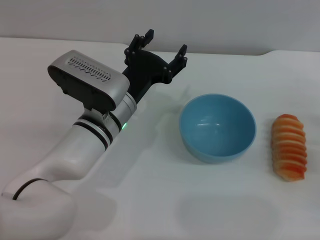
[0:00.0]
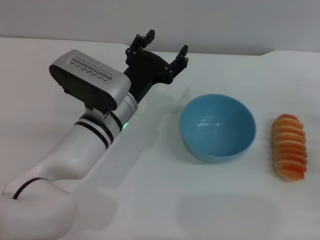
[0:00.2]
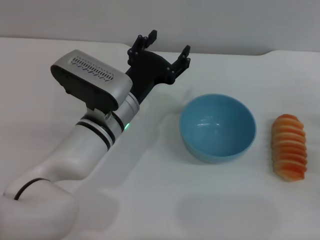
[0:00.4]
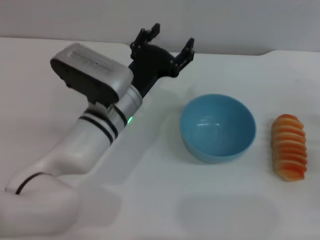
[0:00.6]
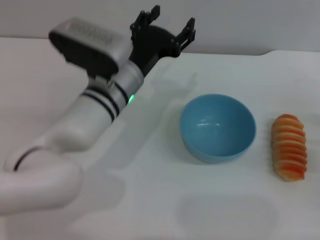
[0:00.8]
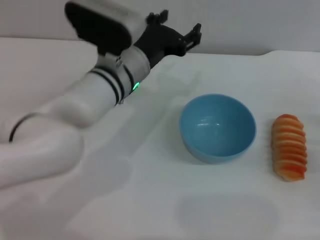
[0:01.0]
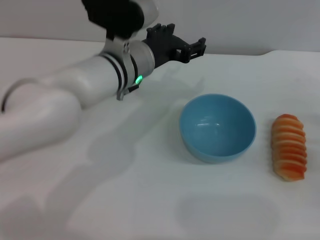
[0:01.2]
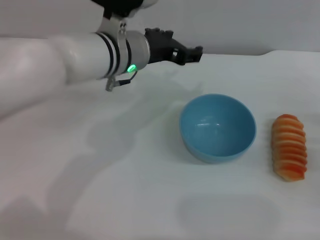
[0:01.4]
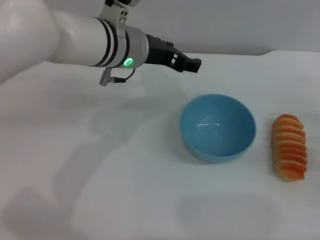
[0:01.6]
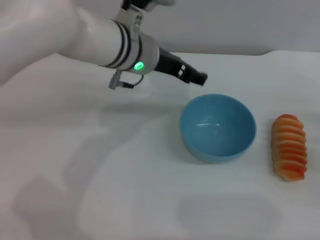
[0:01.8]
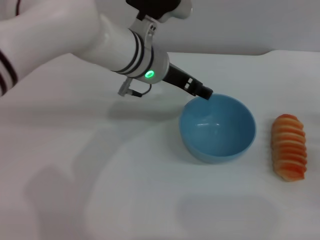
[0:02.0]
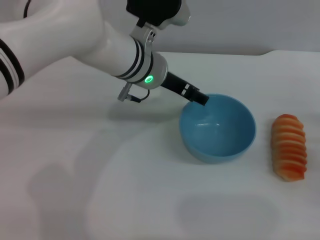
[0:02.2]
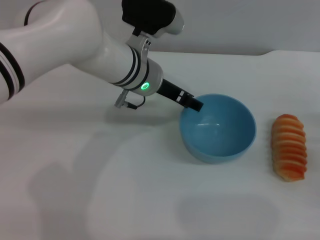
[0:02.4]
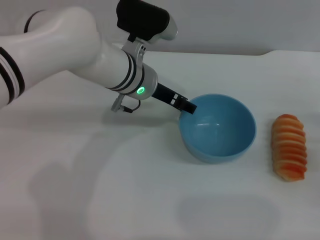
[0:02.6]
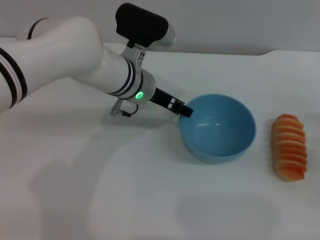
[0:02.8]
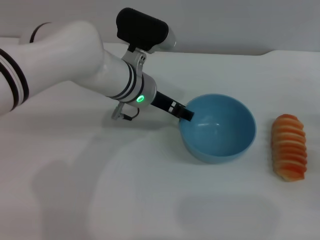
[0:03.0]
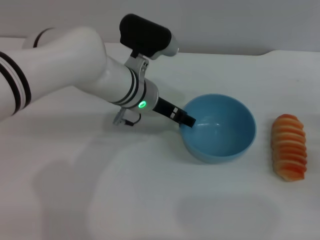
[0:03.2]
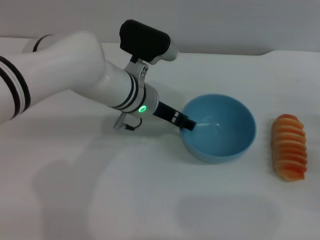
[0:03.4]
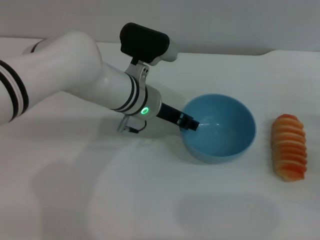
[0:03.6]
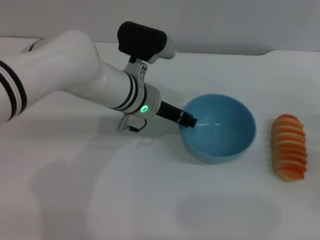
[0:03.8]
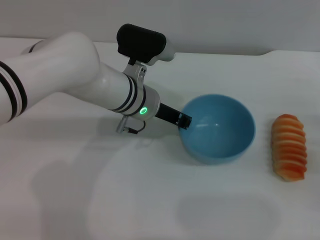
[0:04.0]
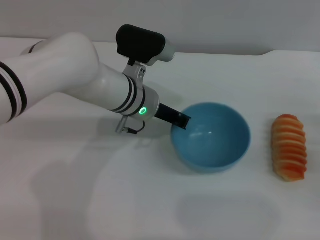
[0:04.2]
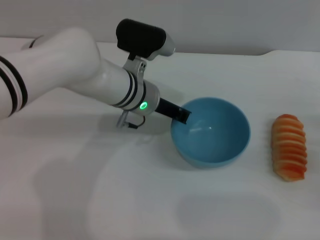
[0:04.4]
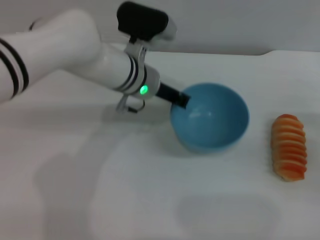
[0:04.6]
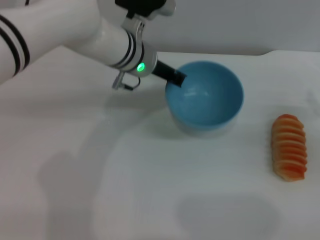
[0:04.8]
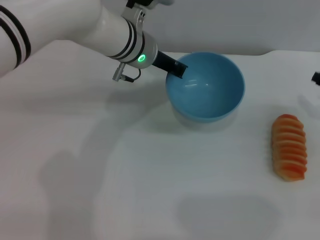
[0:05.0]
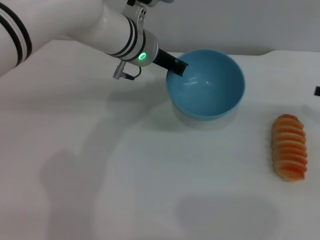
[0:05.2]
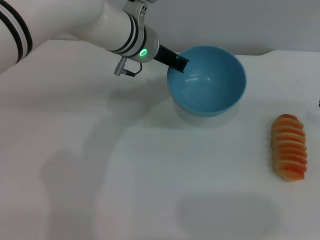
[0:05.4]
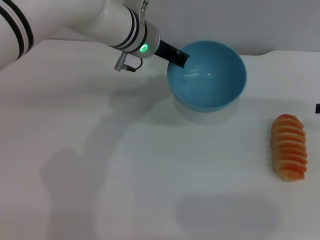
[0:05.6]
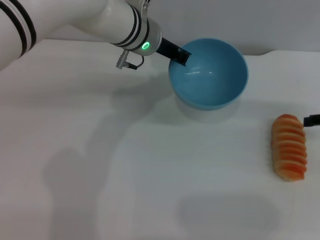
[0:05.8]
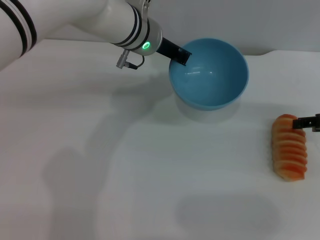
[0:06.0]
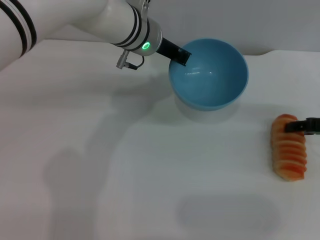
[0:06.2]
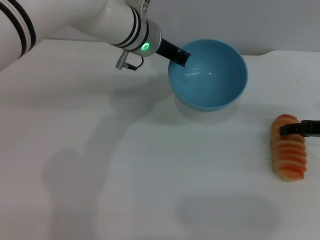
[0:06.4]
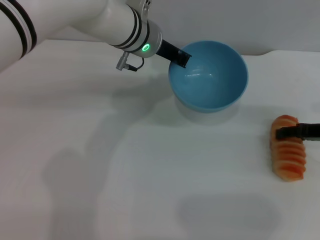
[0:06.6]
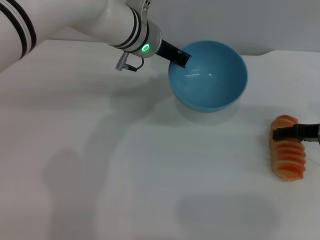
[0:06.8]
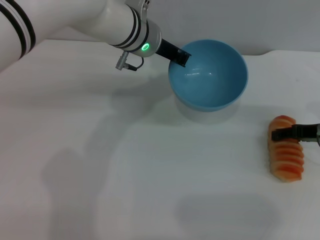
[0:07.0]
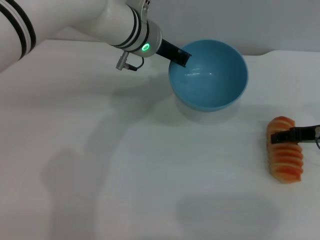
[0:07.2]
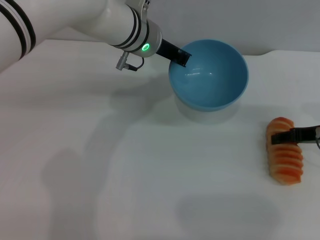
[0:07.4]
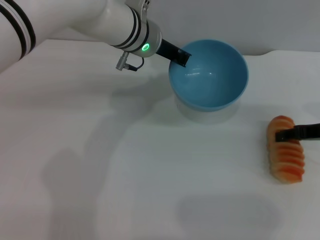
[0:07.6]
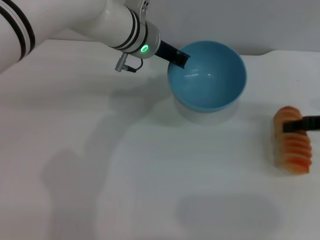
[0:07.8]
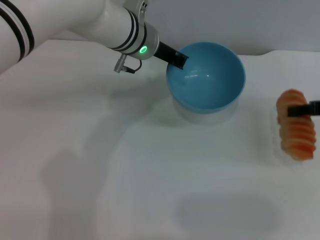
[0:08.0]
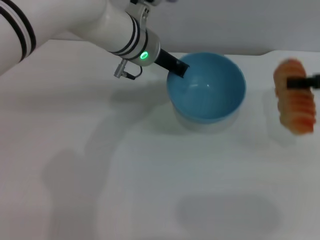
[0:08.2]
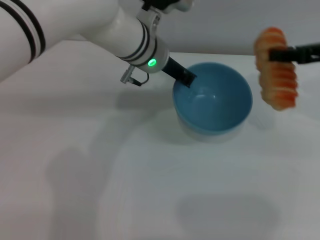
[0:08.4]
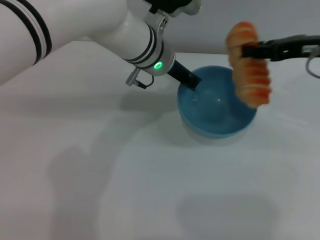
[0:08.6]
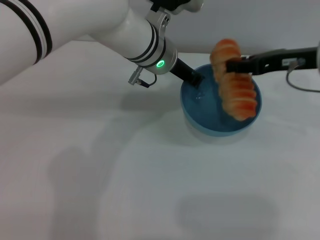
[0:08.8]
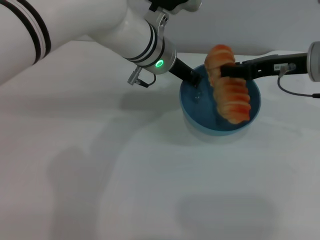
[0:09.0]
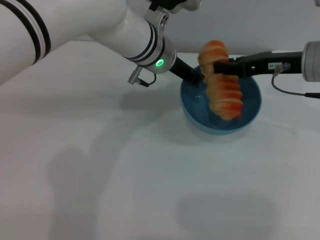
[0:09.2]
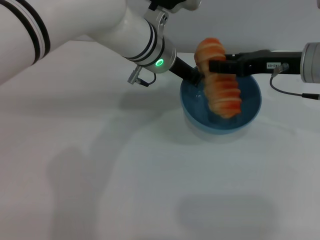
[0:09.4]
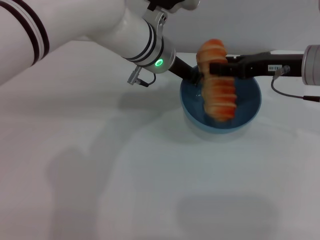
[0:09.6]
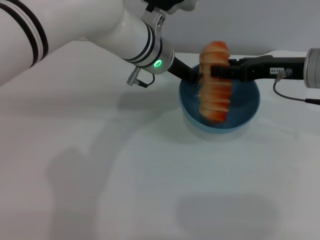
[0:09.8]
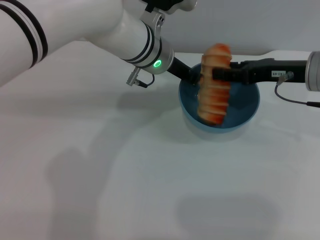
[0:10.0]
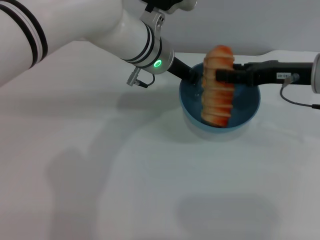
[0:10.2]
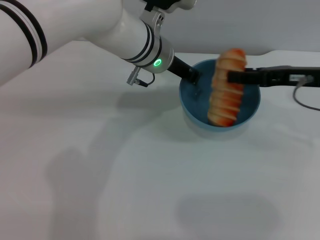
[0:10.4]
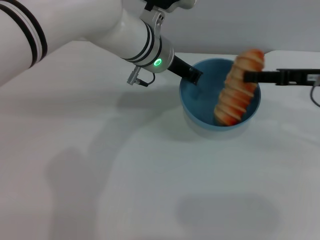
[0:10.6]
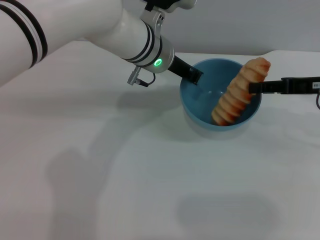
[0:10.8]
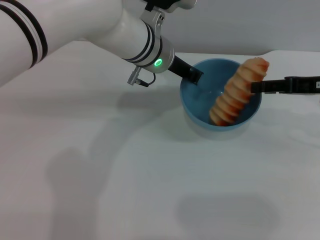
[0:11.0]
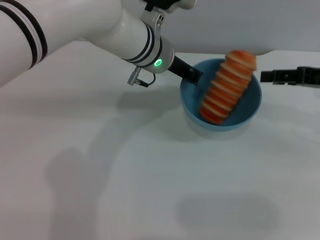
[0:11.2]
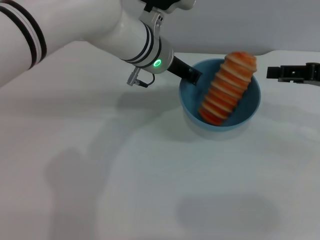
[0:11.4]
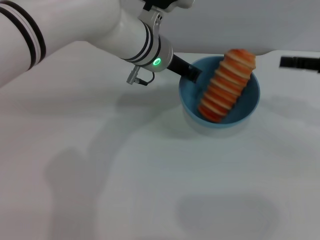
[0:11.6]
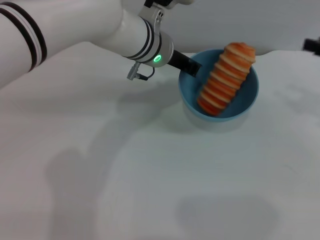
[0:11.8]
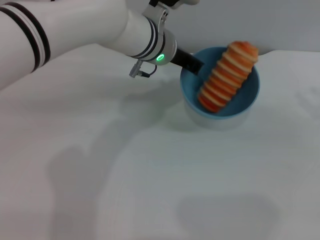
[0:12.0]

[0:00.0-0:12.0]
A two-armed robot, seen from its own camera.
Task of the whole recording: put the bread into the blue bowl and pour it out repeatedly.
Step, 0.0 to 5.2 s: Pick up the bowl with the left gripper.
Step, 5.4 to 8.2 s: Pick up the bread with the right gripper.
Step, 8.6 to 11.0 s: Place the bread into the bowl.
0.0 to 1.6 s: The left gripper heads upward and forward, covering approximately 15 cm.
1.6 to 3.0 s: The left gripper shifts some 5 cm downward.
3.0 to 4.4 s: The left gripper closes its fingers.
4.4 to 6.0 s: Both grippers travel together upward and forward, approximately 10 cm.
6.0 to 7.6 s: There are only small adjustments of the grippers.
7.6 to 9.0 s: The right gripper shifts roughly 10 cm to the left and upward, and closes its fingers.
9.0 to 10.4 s: The right gripper opens.
10.4 to 12.0 s: The right gripper heads to the right, covering approximately 10 cm.

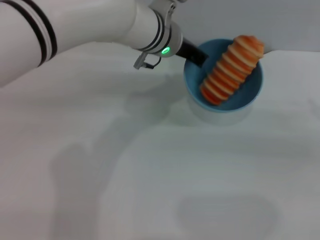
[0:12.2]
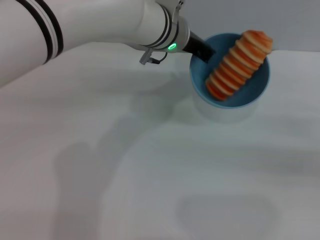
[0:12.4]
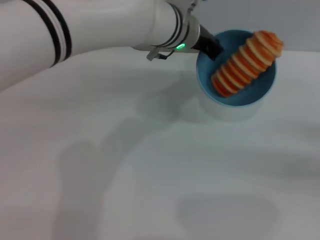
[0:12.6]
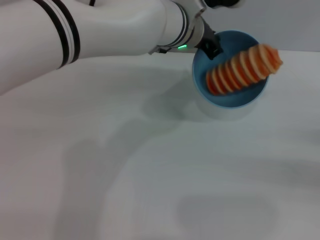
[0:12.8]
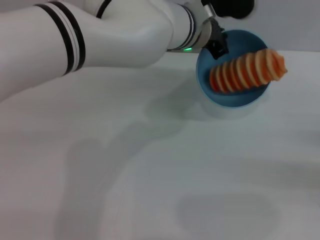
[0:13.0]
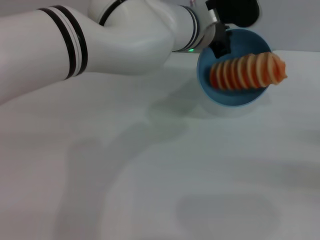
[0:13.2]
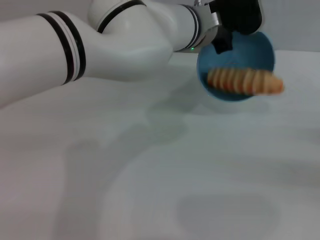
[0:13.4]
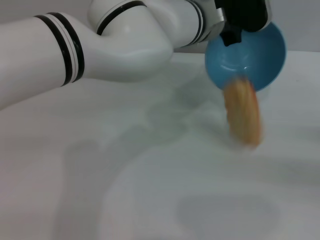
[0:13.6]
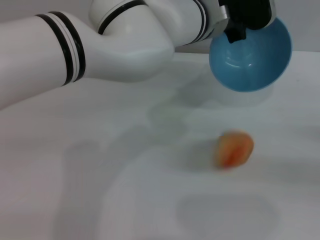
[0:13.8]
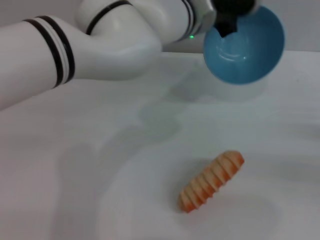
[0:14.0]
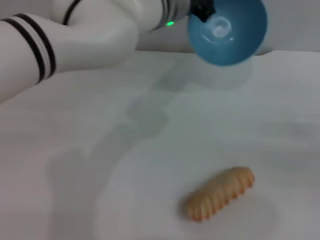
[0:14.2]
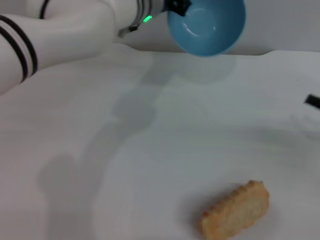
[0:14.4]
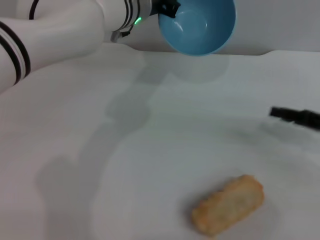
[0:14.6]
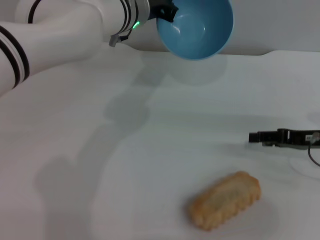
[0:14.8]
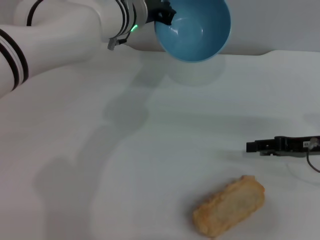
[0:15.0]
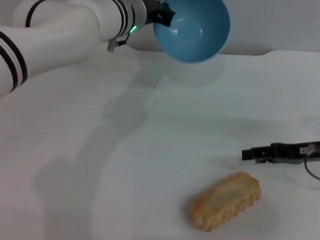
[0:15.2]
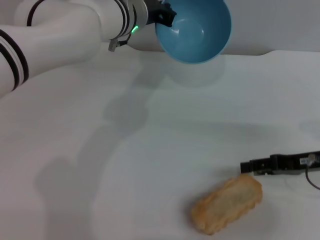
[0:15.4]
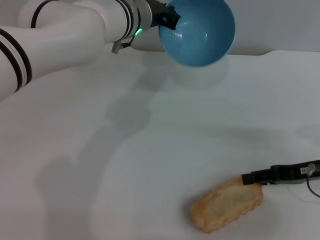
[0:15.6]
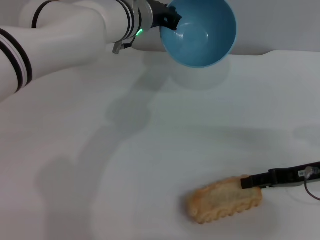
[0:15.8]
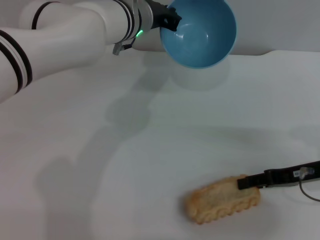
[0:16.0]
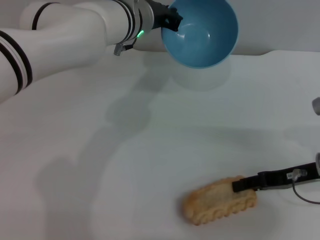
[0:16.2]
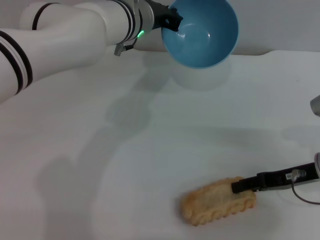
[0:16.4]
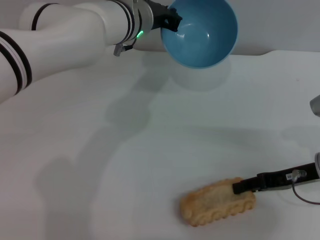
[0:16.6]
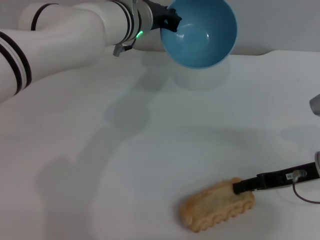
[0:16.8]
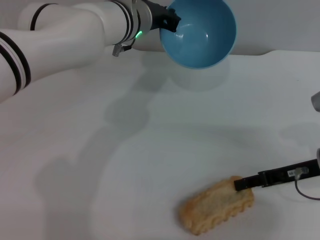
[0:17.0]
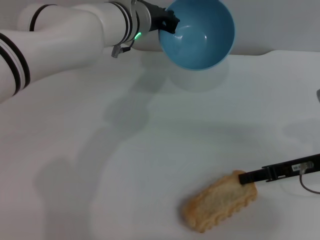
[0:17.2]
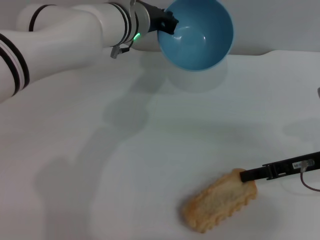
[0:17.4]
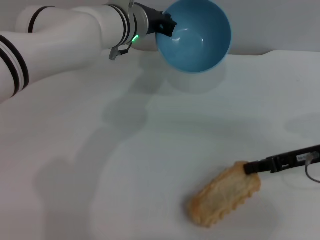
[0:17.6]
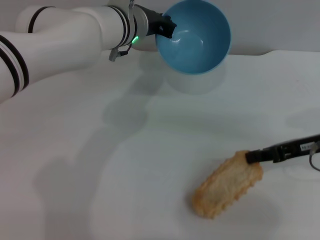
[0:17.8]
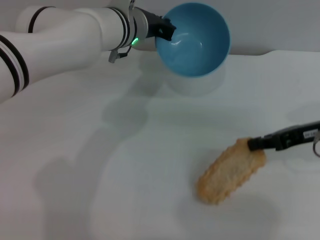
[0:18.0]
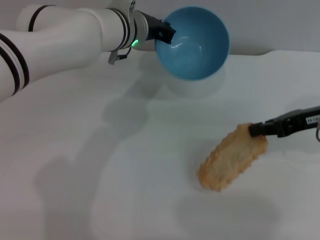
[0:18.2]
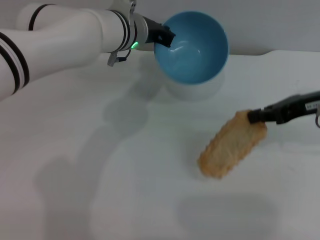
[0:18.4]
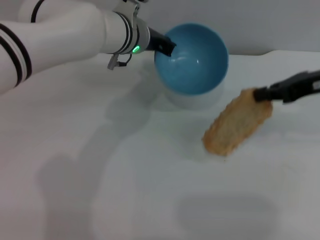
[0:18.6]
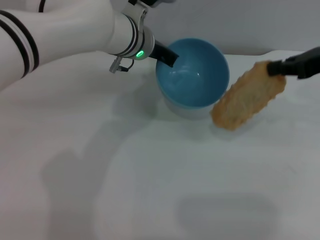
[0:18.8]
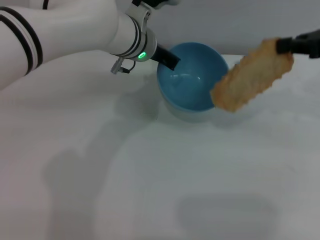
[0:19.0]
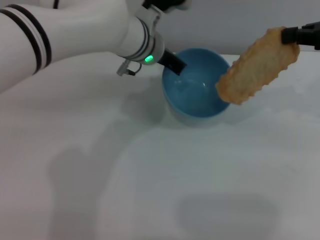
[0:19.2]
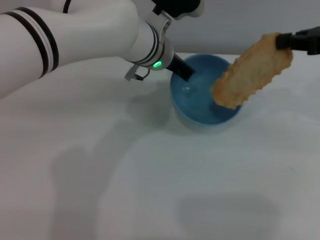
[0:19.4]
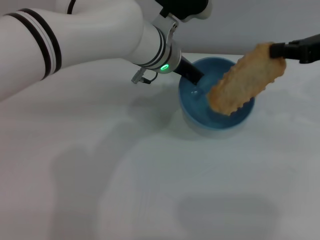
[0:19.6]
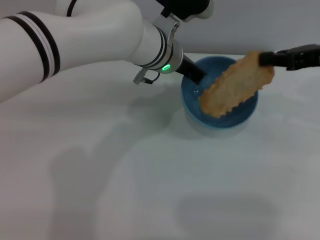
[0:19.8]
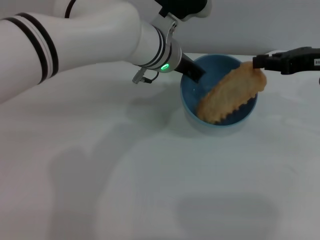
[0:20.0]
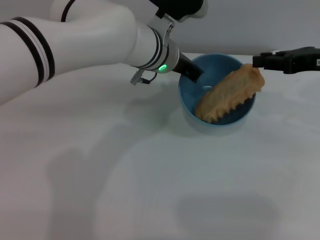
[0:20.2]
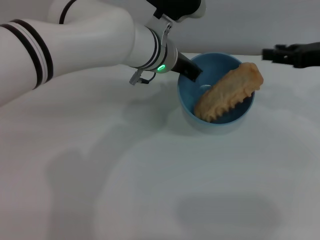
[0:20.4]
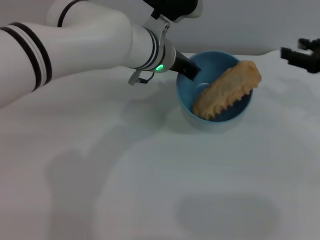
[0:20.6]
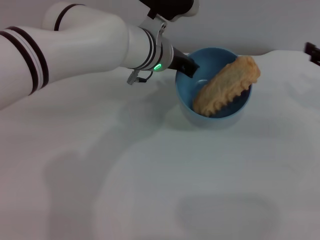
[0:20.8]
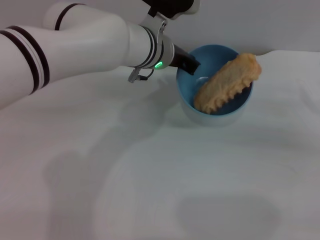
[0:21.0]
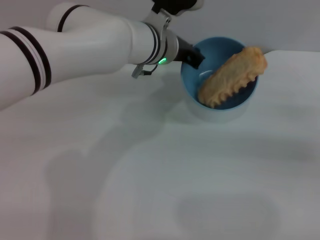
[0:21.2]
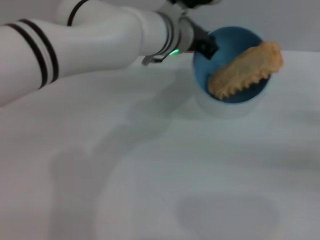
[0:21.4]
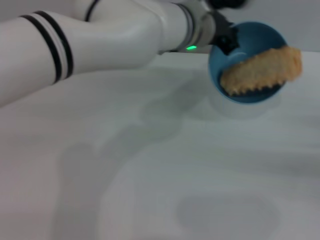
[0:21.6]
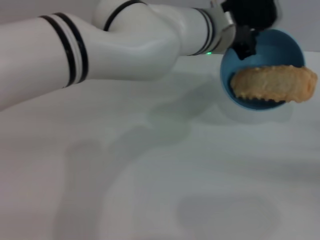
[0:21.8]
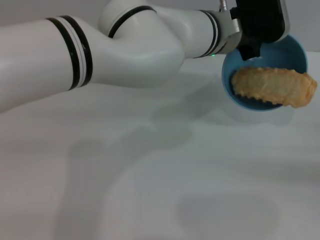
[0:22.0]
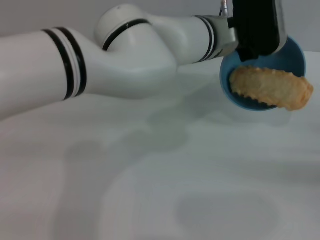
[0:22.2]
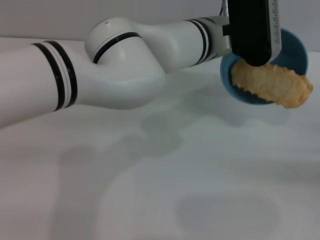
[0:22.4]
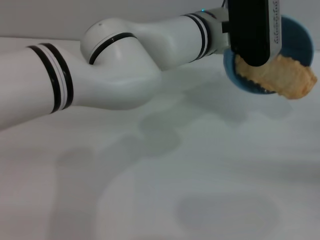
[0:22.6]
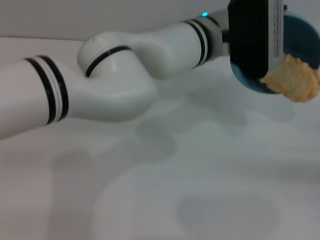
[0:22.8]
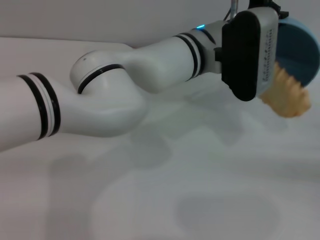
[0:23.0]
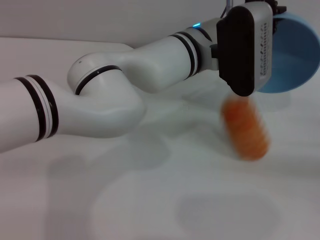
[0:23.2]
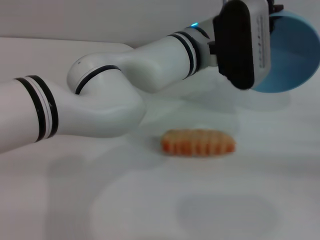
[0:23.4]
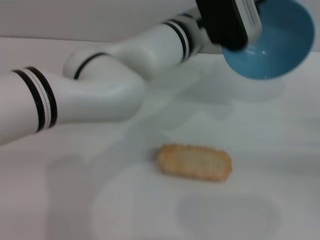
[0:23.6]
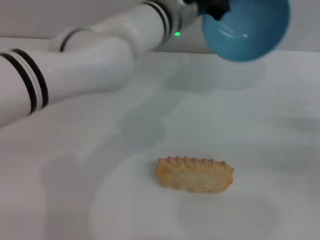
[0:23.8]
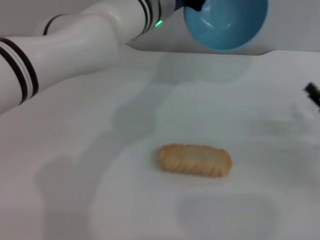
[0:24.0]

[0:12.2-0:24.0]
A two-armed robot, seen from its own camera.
Task of the whole recording: put the bread into the blue bowl and pour it out repeatedly.
Step, 12.2 to 13.8 s: Pour the bread out of the bowl.
Step, 14.0 to 18.4 s: Pick up the bread with the right gripper.
Step, 18.6 to 20.6 s: Place the bread into the bowl.
Step, 20.8 to 23.2 s: Pour the bread out of the bowl.
12.2 to 13.6 s: The right gripper moves some 5 cm; the left gripper goes roughly 5 cm to the right.
13.6 to 15.2 s: The right gripper goes about 15 cm to the left and forward, while the left gripper is displaced to the left by roughly 10 cm.
15.2 to 16.6 s: The grippers move only a little.
16.6 to 18.2 s: The right gripper is displaced upward by approximately 10 cm, and closes up.
18.2 to 19.6 s: The left gripper heads to the right, covering about 5 cm. The right gripper goes about 5 cm upward.
19.6 to 21.0 s: The right gripper is displaced downward and to the right by roughly 15 cm, and opens its fingers.
21.0 to 22.6 s: The left gripper heads to the right, covering approximately 5 cm. Meanwhile the right gripper shifts roughly 5 cm backward.
22.6 to 24.0 s: Both grippers move to the left, roughly 5 cm.
